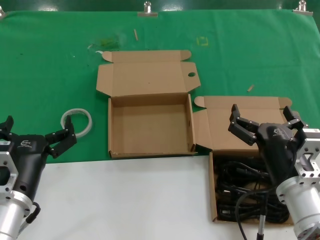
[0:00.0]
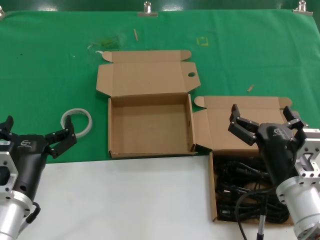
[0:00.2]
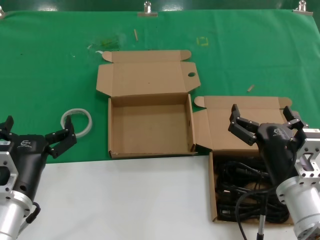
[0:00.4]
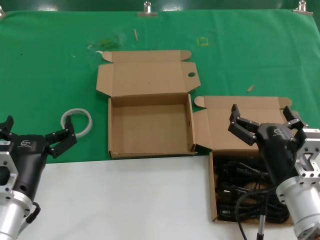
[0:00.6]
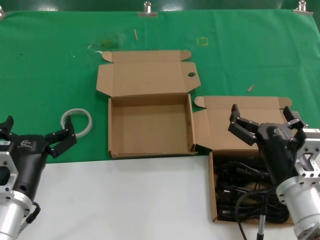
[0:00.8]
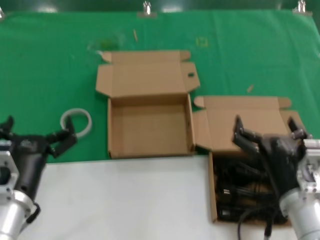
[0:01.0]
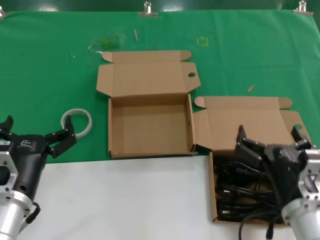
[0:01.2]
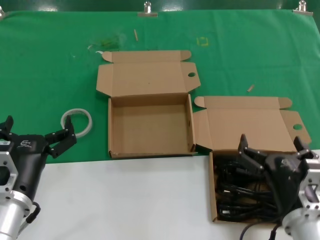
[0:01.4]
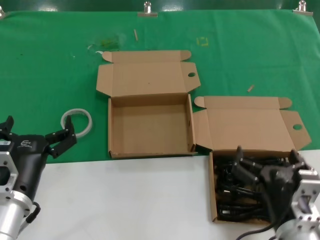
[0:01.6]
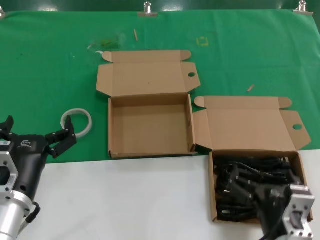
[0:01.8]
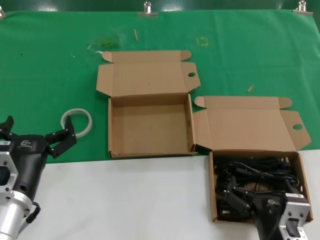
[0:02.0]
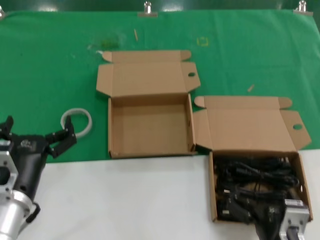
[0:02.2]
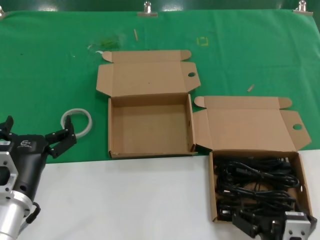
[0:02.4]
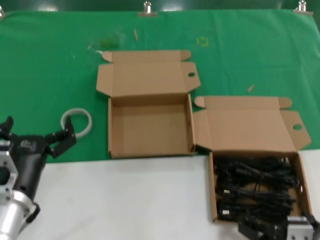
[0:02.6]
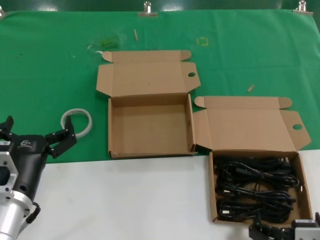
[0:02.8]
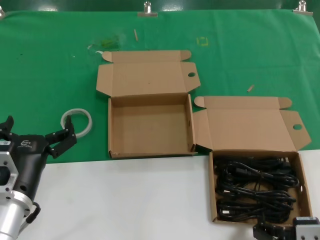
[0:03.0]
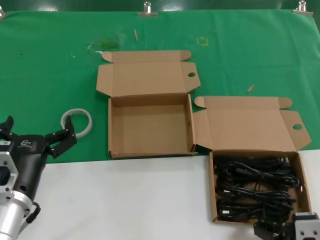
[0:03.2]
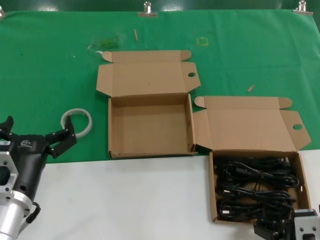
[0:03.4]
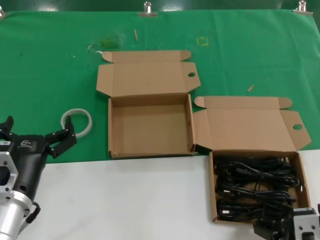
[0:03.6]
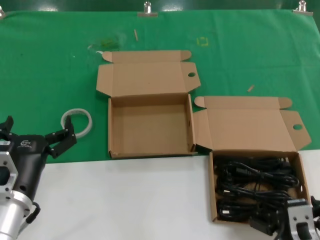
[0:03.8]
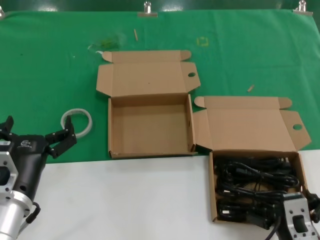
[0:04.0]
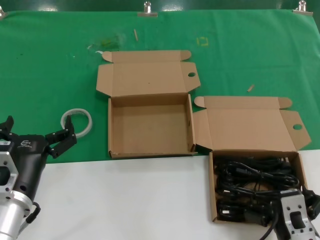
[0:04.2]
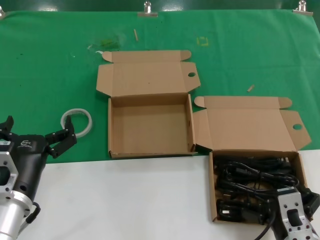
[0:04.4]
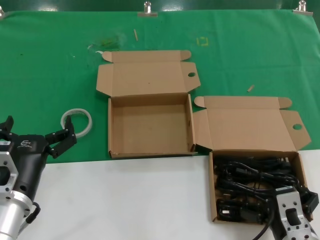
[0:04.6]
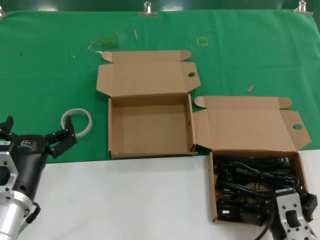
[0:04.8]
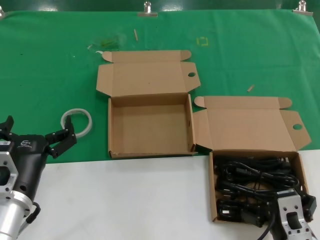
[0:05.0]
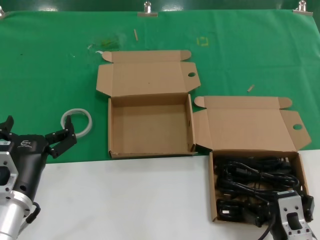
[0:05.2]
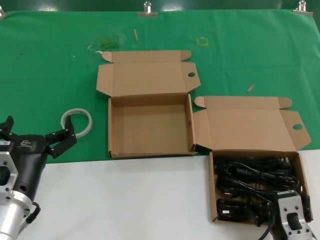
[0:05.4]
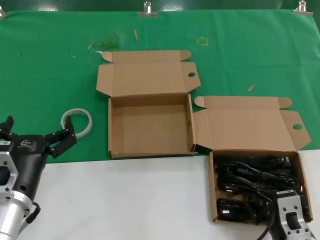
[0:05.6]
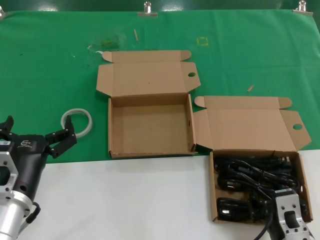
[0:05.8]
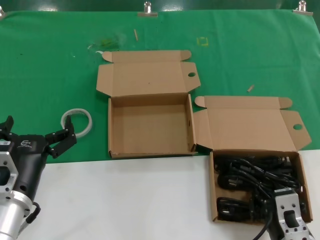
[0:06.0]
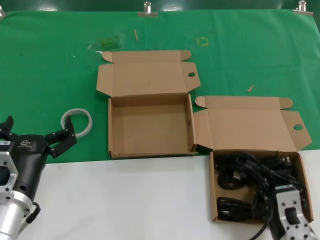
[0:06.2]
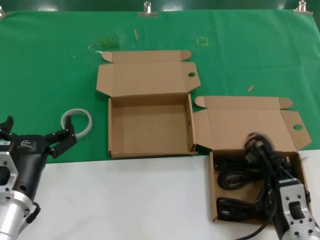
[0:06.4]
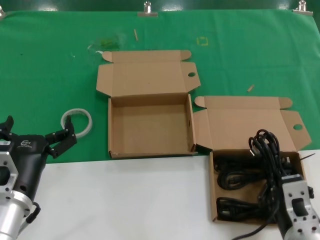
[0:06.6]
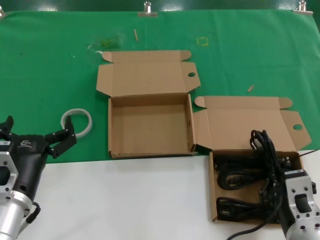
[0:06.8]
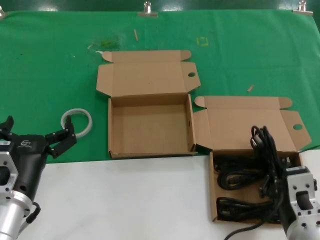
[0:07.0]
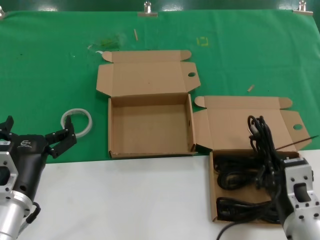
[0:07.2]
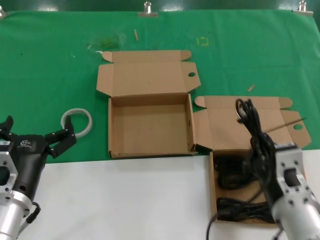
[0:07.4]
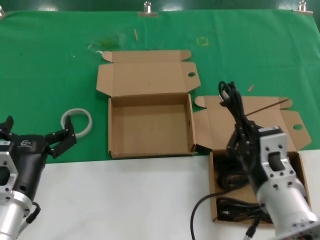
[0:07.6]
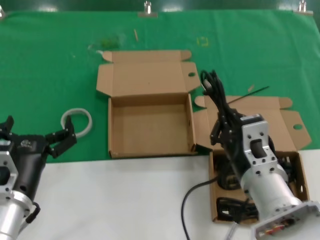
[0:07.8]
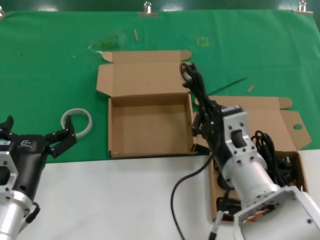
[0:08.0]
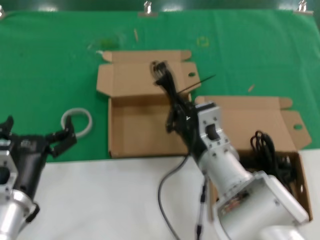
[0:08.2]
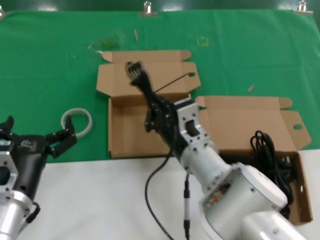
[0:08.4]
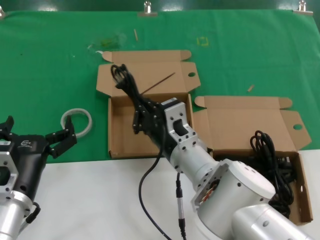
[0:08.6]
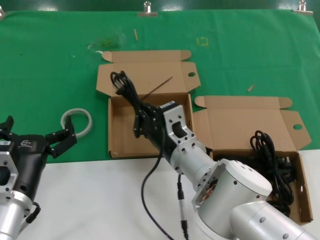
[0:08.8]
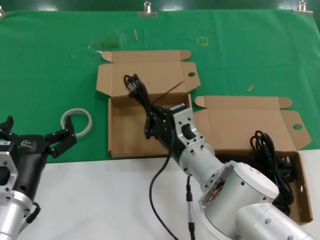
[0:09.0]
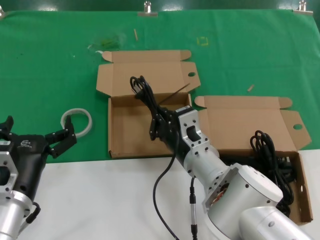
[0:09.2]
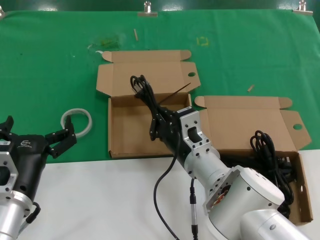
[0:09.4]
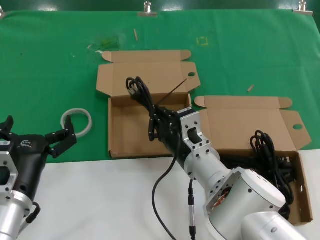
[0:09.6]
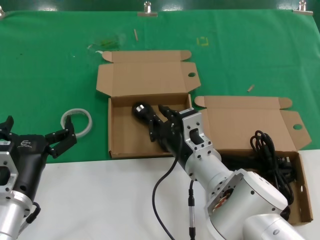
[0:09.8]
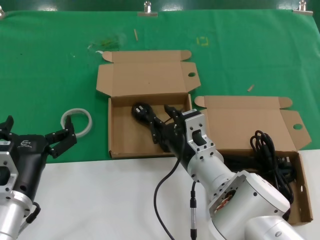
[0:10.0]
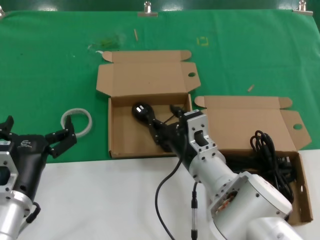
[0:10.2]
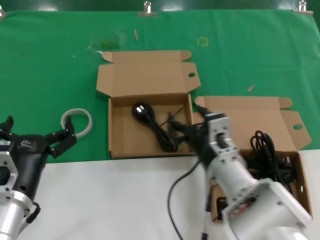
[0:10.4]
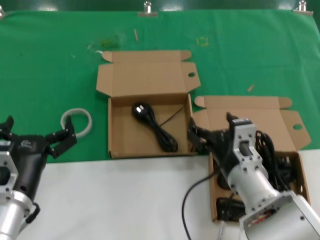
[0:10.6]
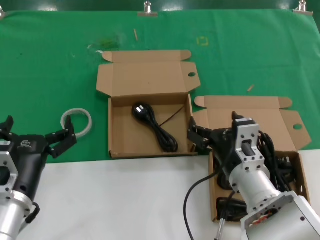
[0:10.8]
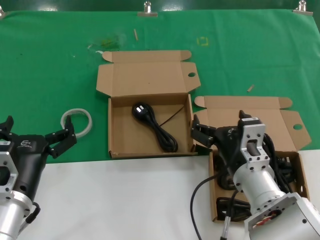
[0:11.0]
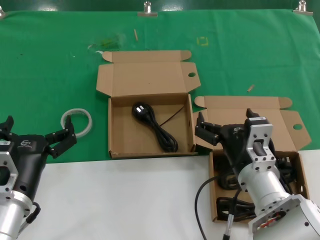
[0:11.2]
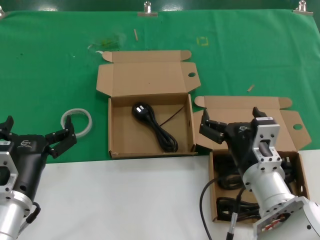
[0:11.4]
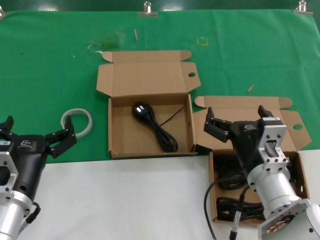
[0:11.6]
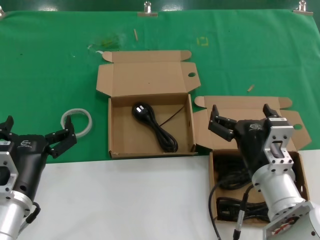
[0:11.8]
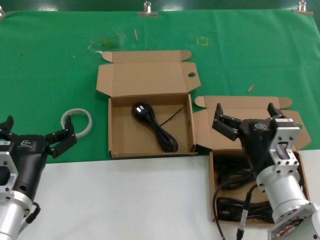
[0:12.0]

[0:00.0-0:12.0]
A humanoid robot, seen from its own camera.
Task of the whole recording: take the parts from the box containing them and put them into an empty box.
Step, 0:00.0 to 0:05.8: Grasp the data cable.
Step, 0:06.0 to 0:09.6: Place the data cable in the another box.
0:00.0 to 0:01.6: The right hand heads backward, covering about 5 cm.
0:01.6 to 0:03.0: The right hand heads backward, covering approximately 10 cm.
0:03.0 to 0:04.4: The right hand travels forward by roughly 5 cm.
0:04.4 to 0:06.0: Both hands stay put.
0:06.0 to 0:07.6: The right hand is displaced upward by about 10 cm.
0:07.6 to 0:09.0: The right hand travels forward and to the left by roughly 15 cm.
0:09.0 to 0:10.4: The hands stay close to where they were, moving slightly.
0:10.4 to 0:12.0: The right hand moves to the right, roughly 5 cm.

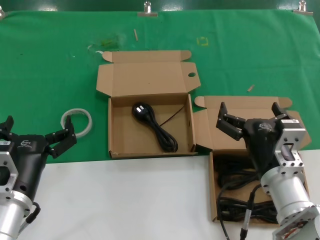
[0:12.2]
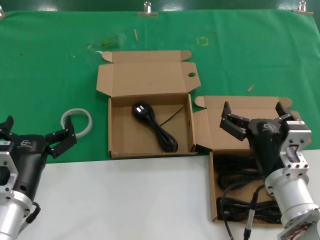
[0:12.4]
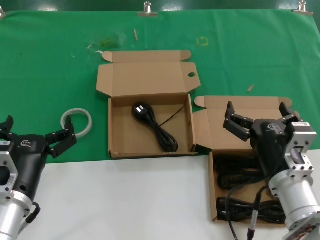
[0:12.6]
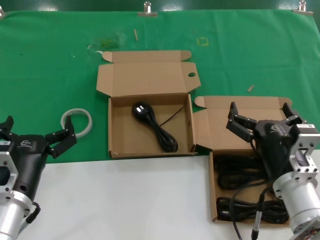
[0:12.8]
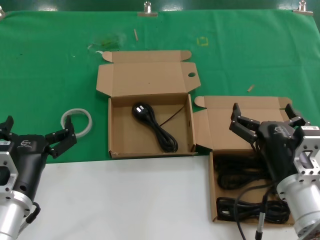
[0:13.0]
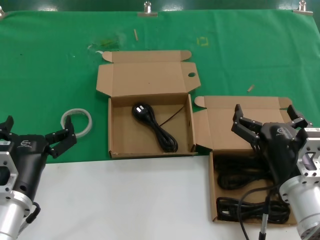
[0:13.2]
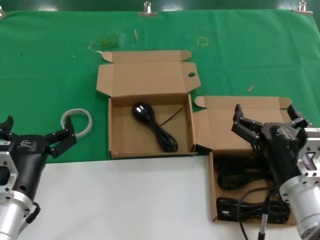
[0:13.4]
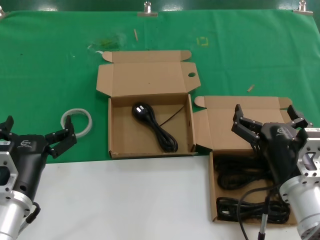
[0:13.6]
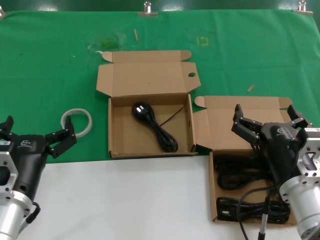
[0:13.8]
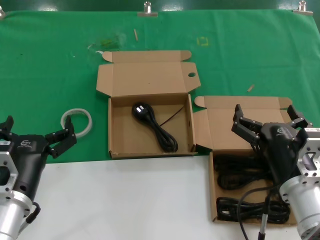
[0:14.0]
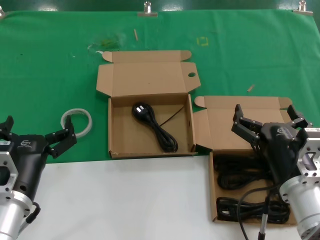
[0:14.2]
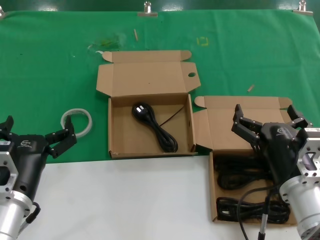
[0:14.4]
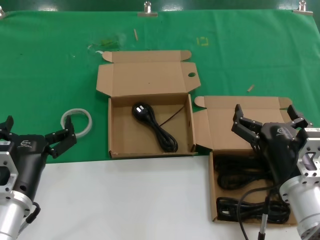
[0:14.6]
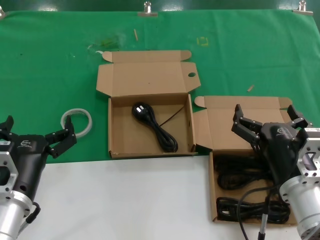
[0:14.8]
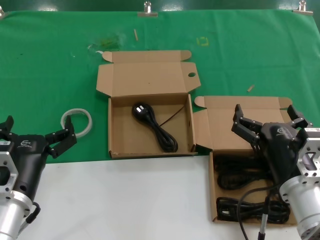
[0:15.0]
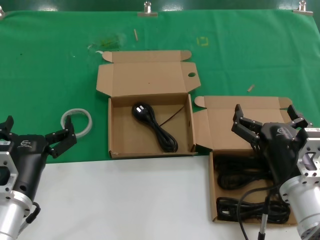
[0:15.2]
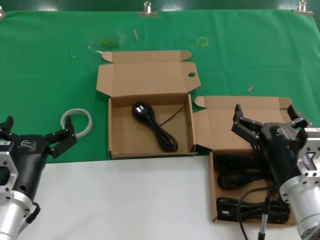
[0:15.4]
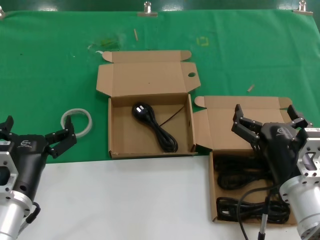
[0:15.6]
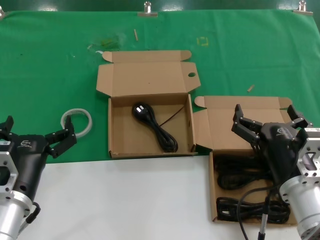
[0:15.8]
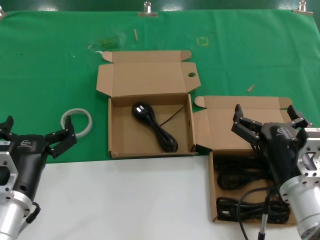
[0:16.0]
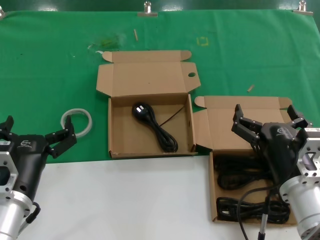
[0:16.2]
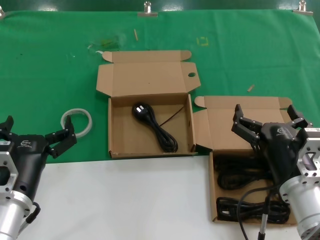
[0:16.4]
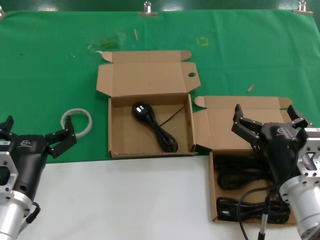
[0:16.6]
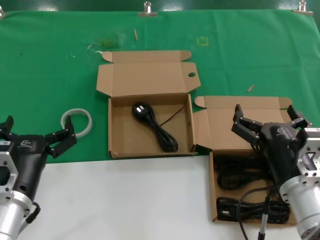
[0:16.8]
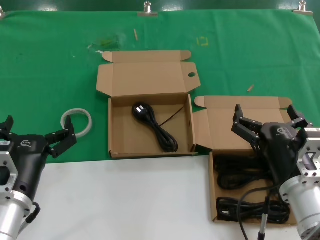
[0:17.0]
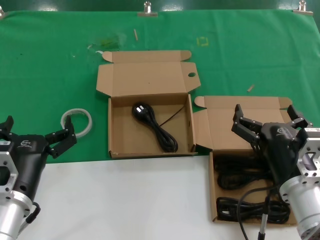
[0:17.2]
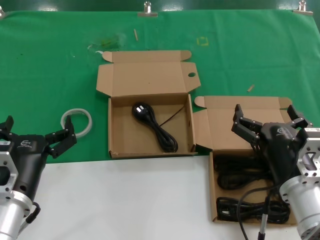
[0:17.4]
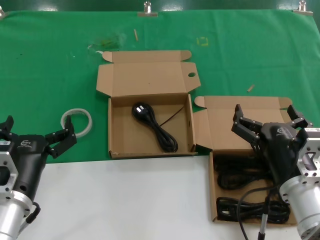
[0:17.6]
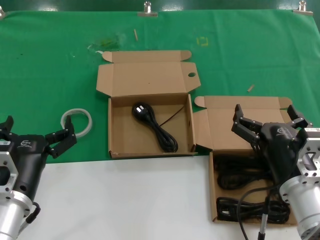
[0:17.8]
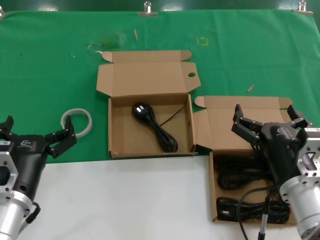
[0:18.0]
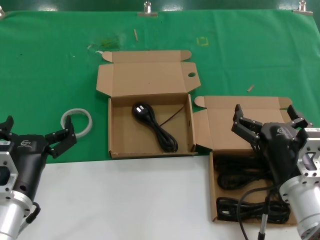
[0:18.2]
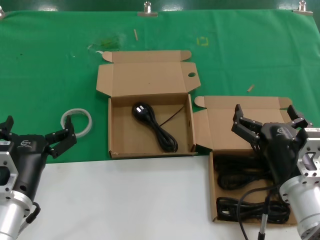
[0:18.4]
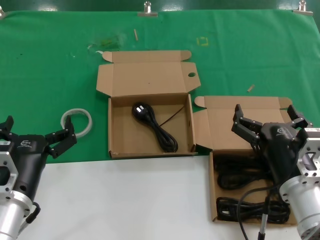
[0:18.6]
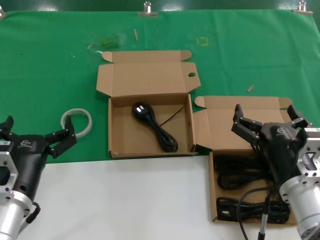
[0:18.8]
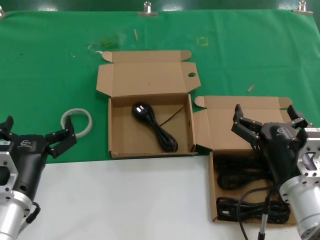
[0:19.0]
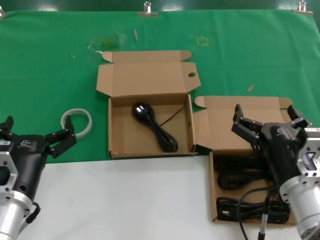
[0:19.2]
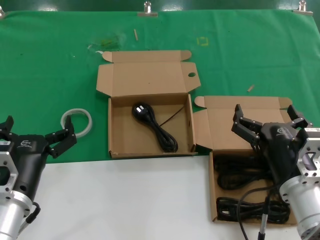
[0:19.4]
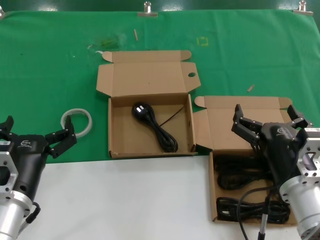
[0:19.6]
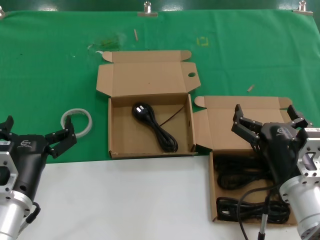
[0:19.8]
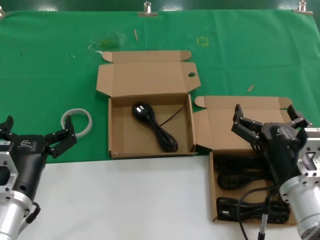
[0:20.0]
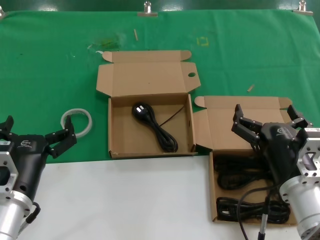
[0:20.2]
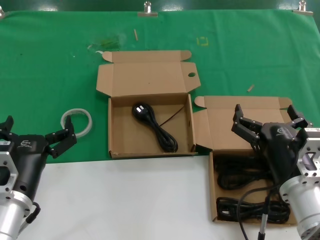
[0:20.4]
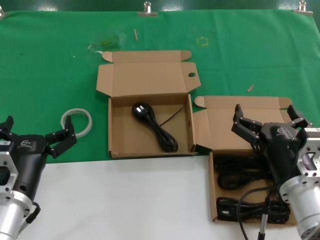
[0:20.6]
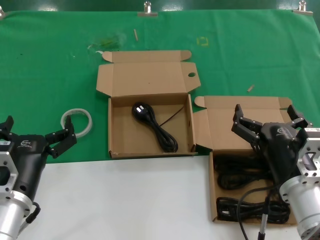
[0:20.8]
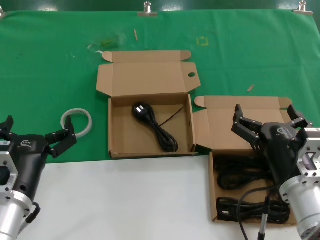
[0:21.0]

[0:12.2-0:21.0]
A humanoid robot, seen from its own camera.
Task of the whole recording: take the parts from the box containing them and put them into an empty box.
0:12.2 to 0:13.6: There are only small adjustments of the hands.
0:13.6 to 0:21.0: Both hands stay about where they are.
